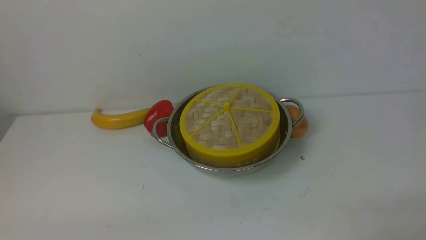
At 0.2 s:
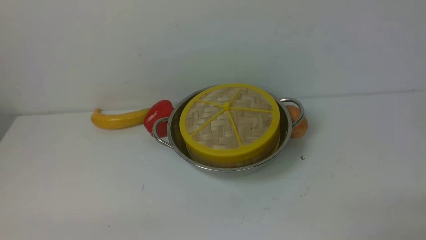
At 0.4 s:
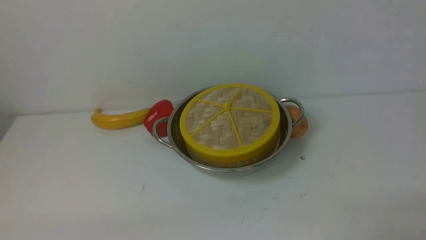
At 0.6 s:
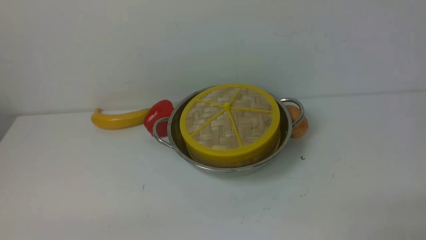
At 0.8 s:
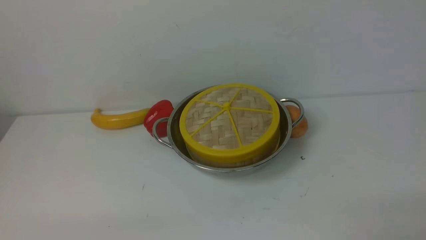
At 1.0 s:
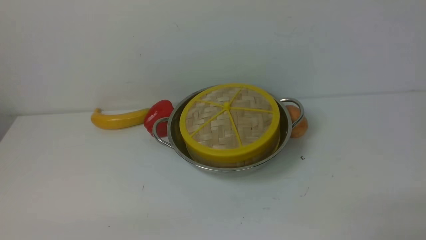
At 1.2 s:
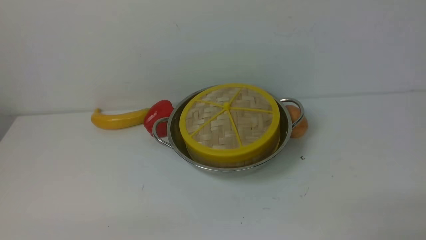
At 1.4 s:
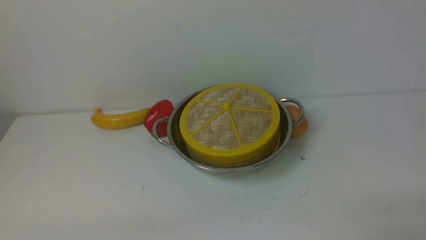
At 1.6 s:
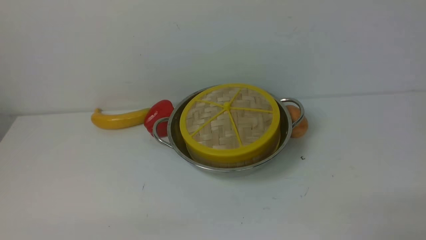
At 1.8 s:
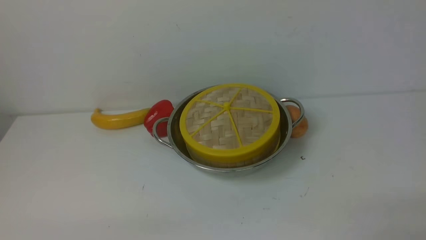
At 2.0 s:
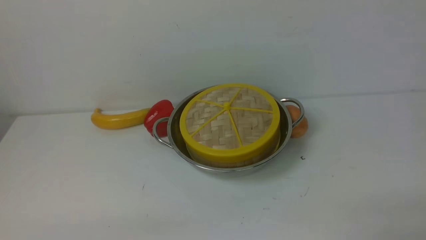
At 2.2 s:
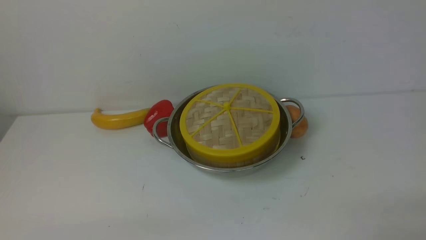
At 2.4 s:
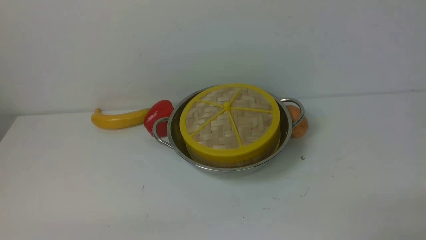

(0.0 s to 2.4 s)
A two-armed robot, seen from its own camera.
Task of the whole recording: place the steamer in the pot on the white table, and put the lid on the steamer.
1.2 s - 2.4 s: Neither gripper changes place.
